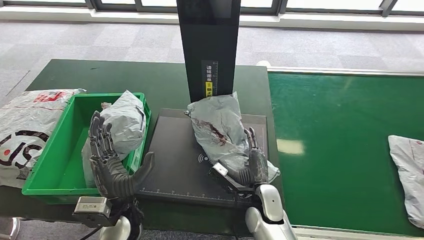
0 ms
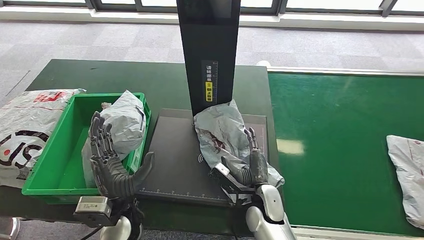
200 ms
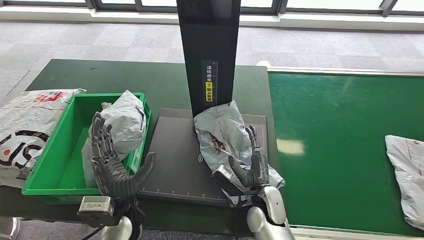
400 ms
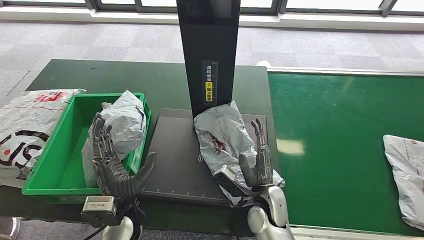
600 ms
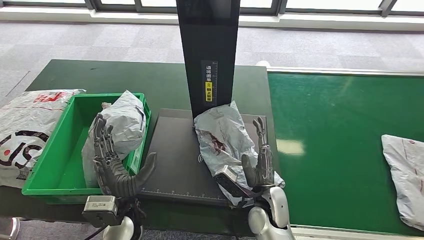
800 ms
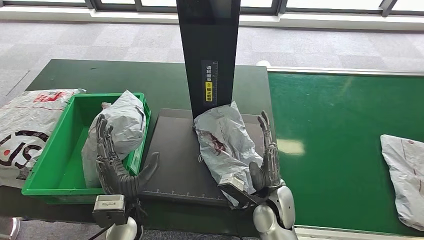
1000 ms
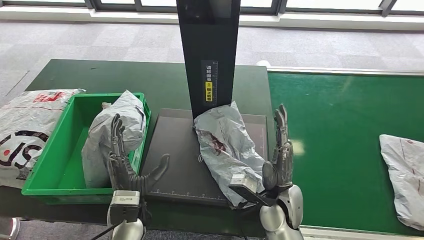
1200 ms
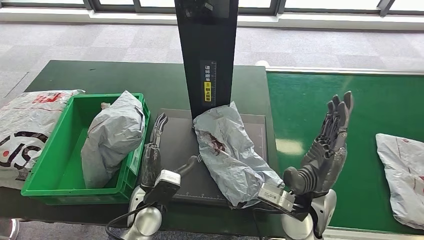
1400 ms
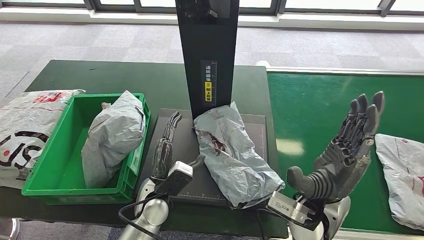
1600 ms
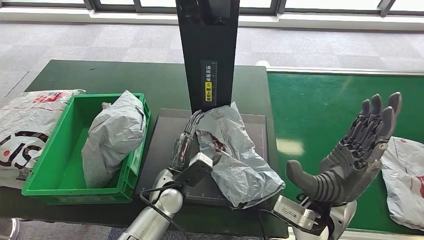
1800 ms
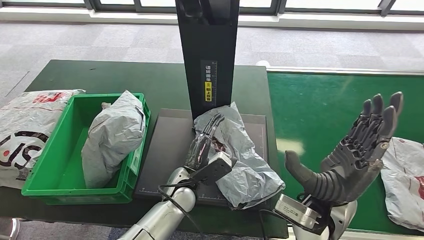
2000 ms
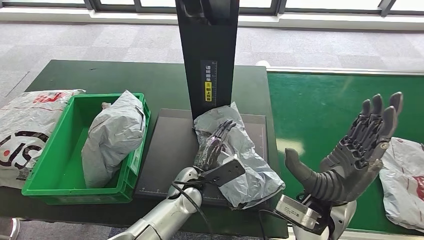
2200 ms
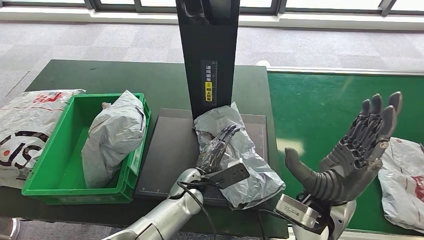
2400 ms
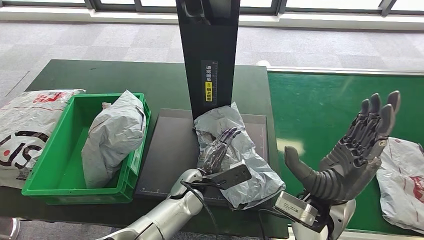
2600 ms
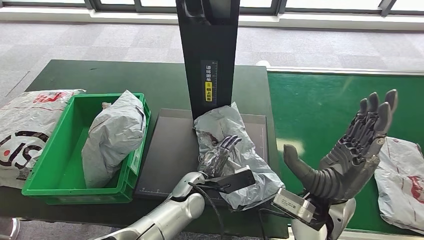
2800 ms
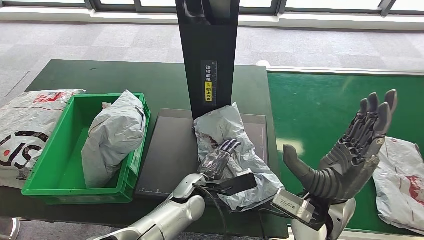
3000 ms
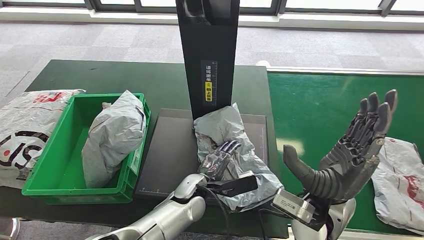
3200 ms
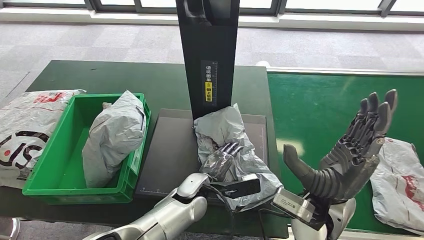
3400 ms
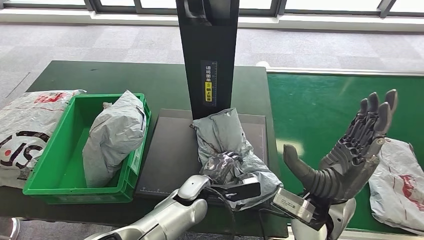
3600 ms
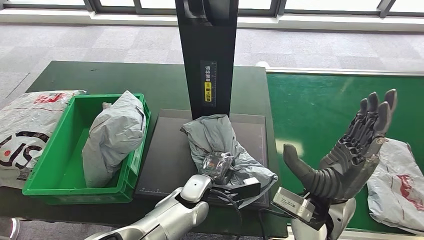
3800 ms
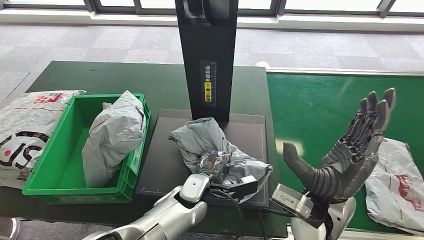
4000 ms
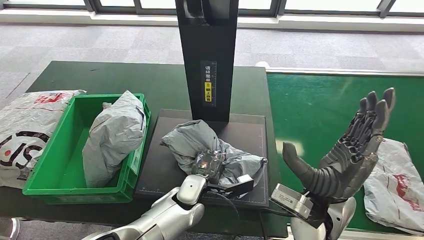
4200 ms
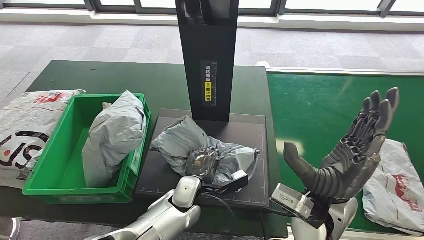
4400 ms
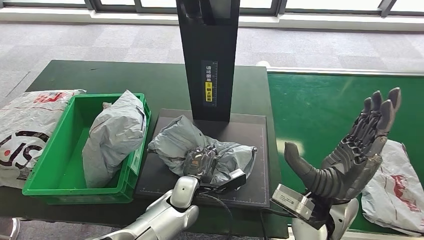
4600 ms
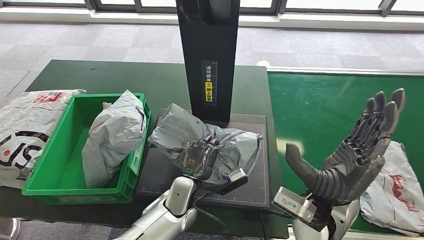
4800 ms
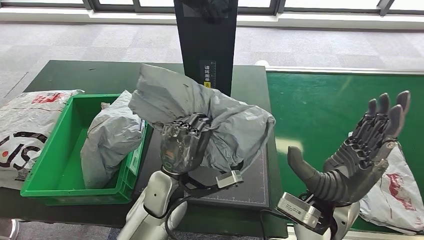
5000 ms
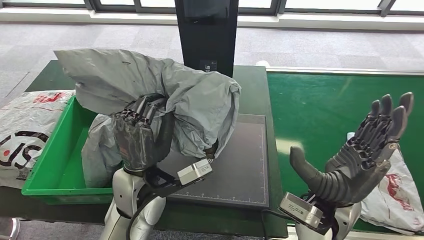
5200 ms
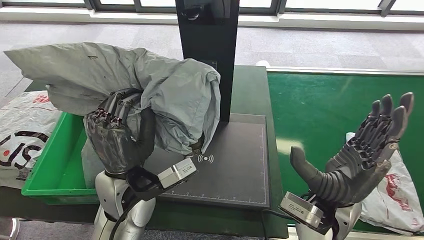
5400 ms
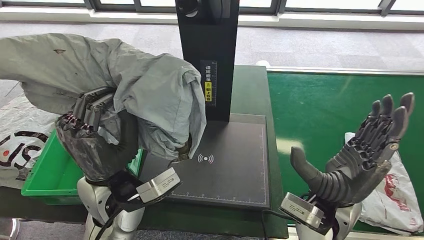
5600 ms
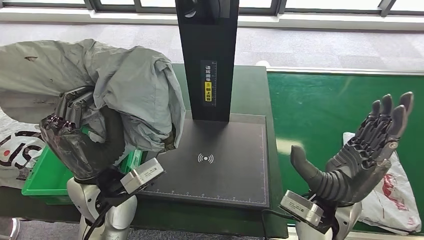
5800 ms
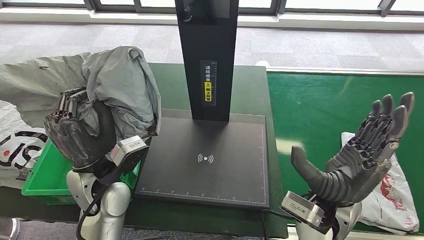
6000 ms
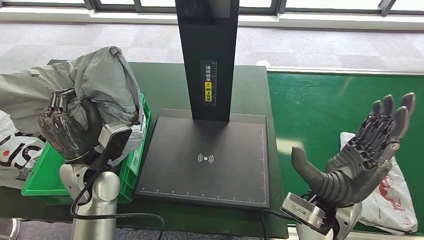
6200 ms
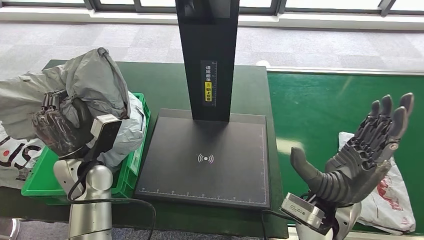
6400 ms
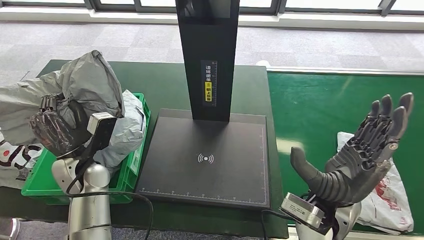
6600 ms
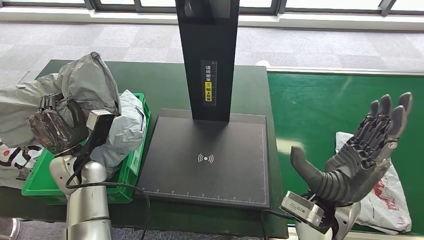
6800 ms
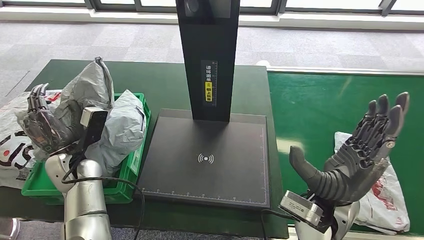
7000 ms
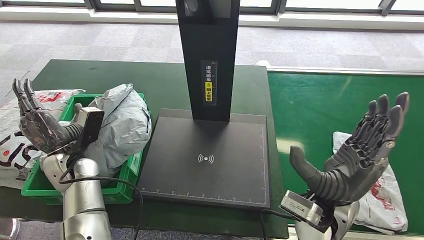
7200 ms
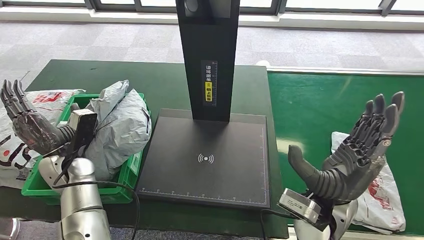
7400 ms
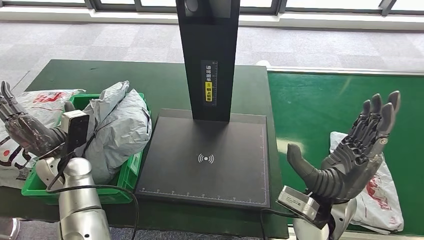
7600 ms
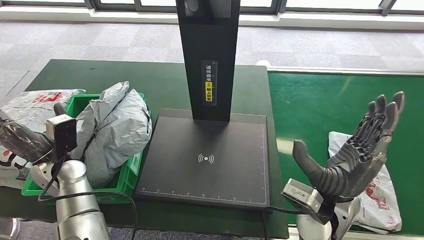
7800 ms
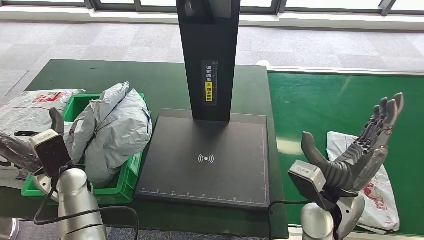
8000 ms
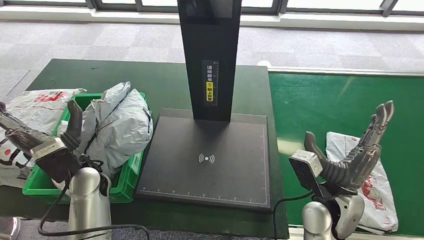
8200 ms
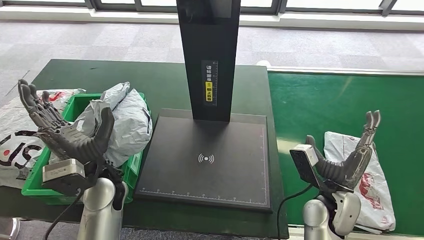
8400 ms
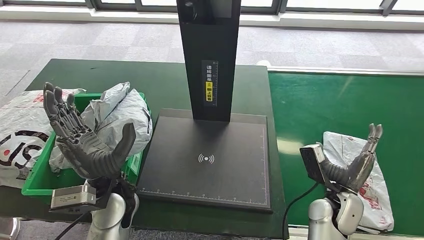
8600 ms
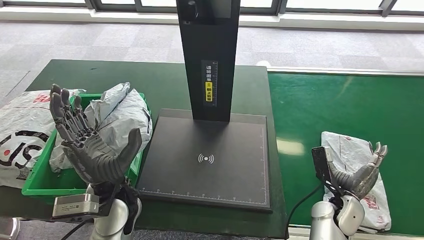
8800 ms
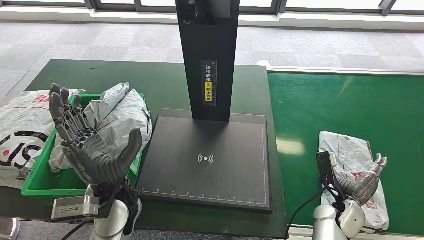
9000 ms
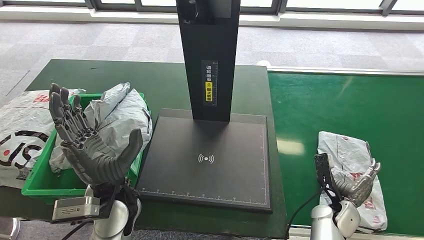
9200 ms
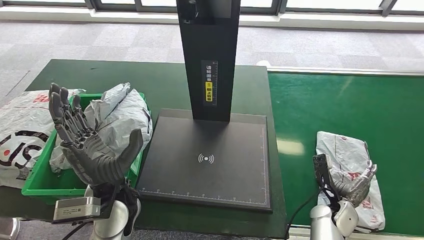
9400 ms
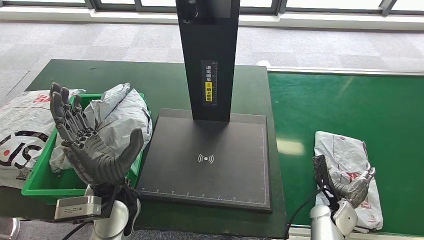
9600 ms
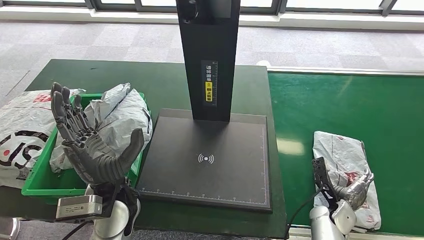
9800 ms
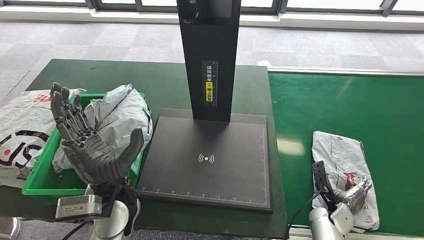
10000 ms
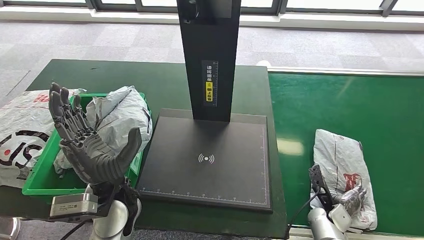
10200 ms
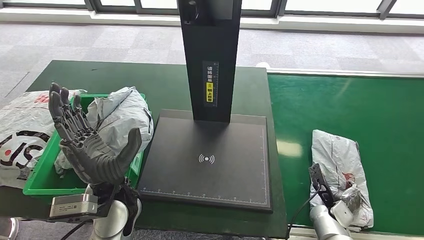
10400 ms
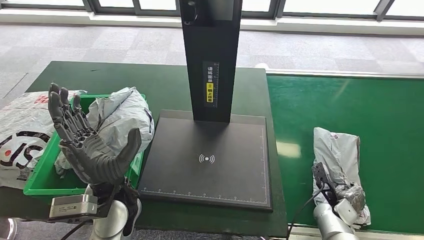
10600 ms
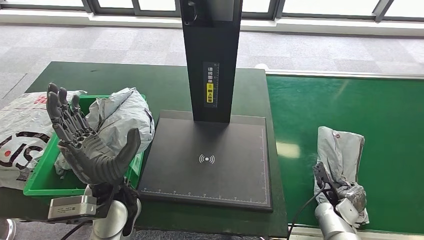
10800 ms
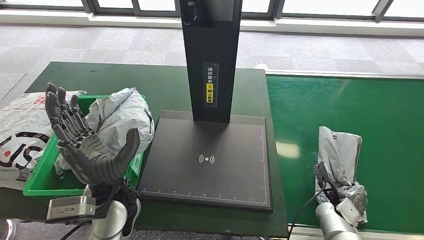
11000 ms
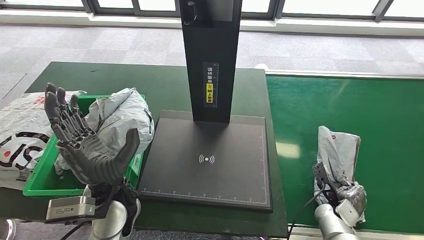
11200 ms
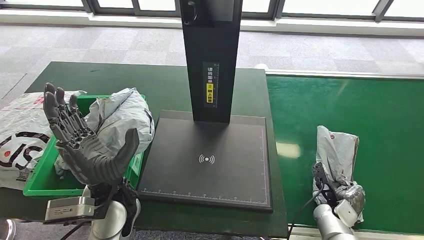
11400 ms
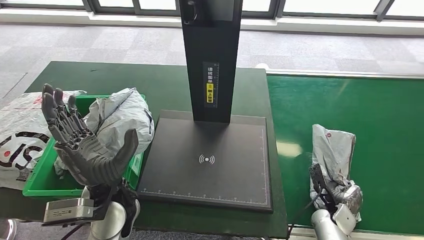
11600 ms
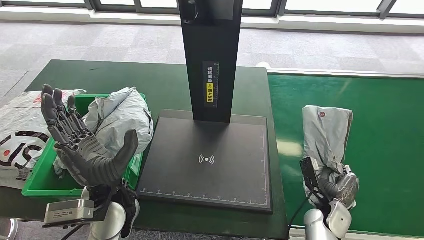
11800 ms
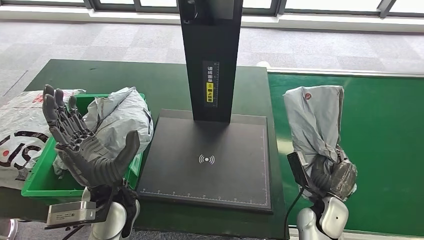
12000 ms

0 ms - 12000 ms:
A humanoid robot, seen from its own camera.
Step, 0 ms - 2000 ms: Place the parcel onto the inbound machine.
Step, 2200 ms - 4800 ms: Pick up the parcel from the inbound machine.
Step, 6400 ms - 8600 ms: Place the parcel into the delivery box.
Step, 9600 ms - 12000 ms: Pick up the parcel from the conveyor belt.
1600 ms - 3000 ms: The left hand moves to the right, roughly 10 cm.
7600 ms - 9000 ms: The left hand travels to the right and upward by approximately 15 cm; the right hand is displaced downward and to the right by roughly 20 cm.
9000 ms - 10400 ms: The right hand goes approximately 5 cm downward.

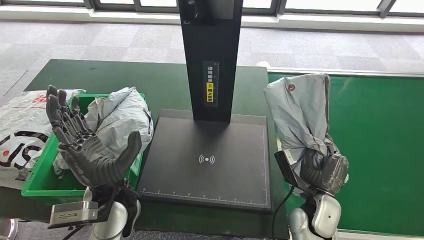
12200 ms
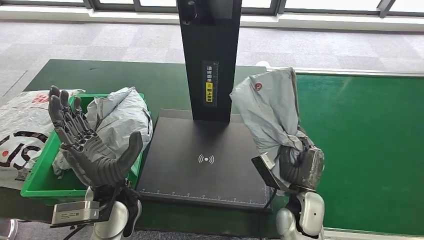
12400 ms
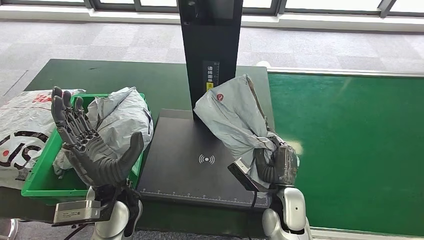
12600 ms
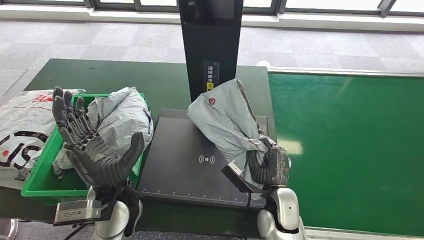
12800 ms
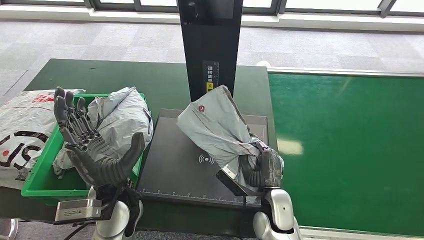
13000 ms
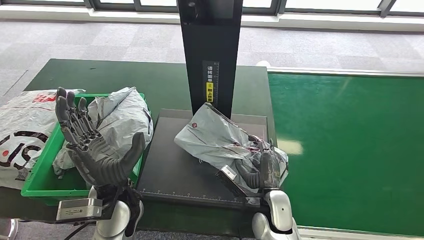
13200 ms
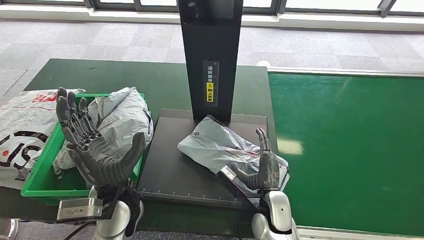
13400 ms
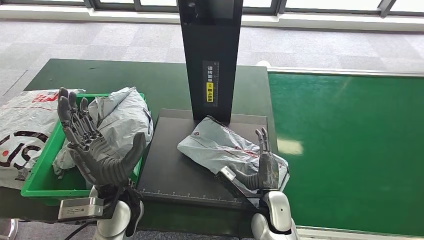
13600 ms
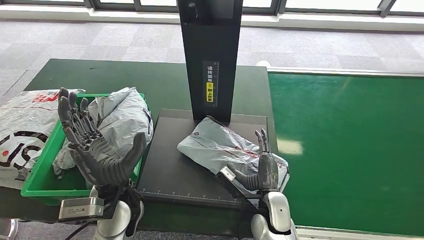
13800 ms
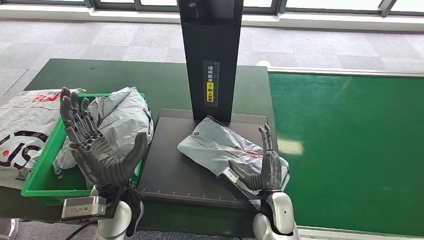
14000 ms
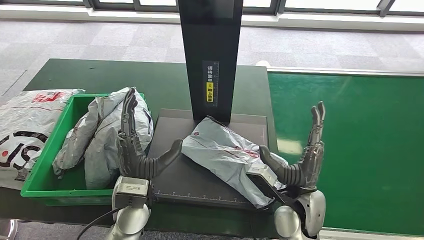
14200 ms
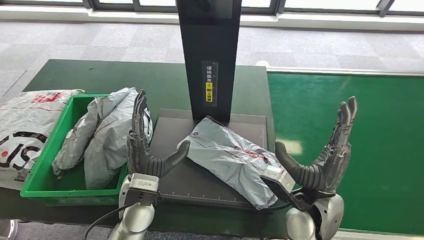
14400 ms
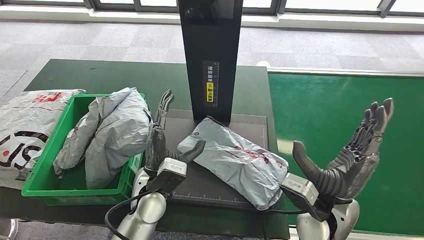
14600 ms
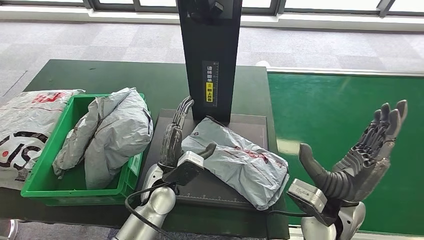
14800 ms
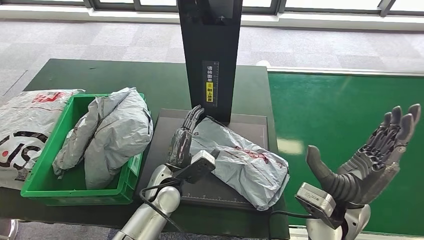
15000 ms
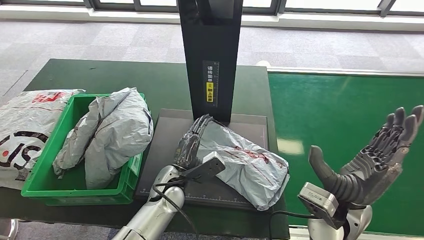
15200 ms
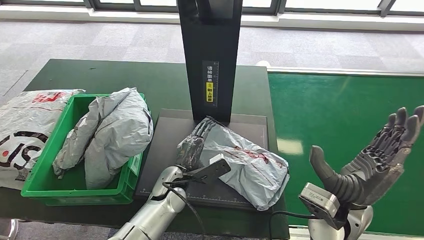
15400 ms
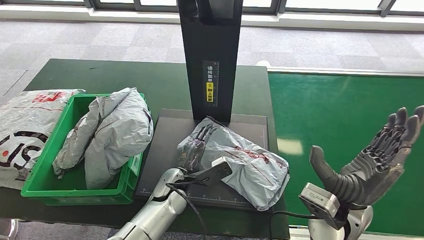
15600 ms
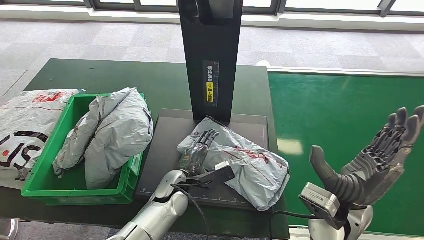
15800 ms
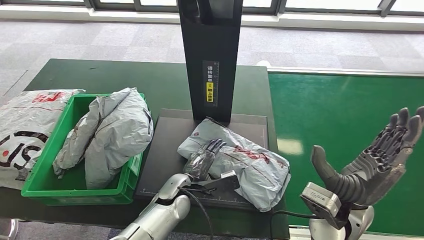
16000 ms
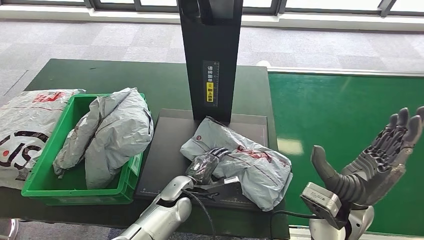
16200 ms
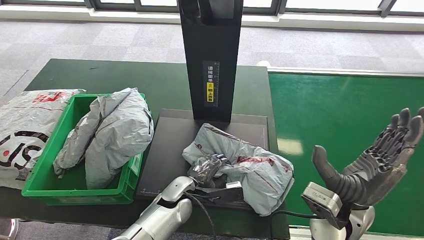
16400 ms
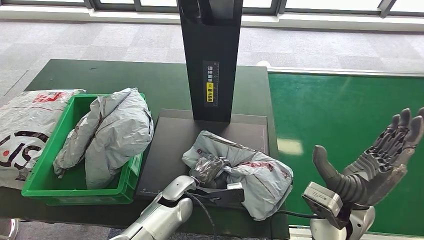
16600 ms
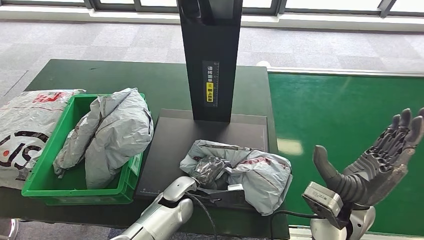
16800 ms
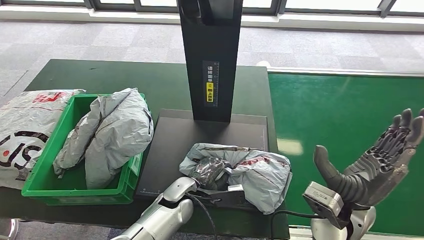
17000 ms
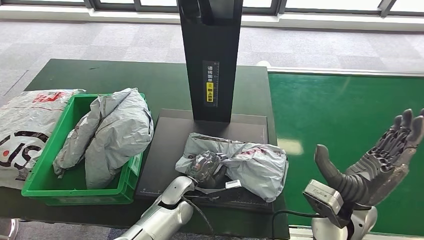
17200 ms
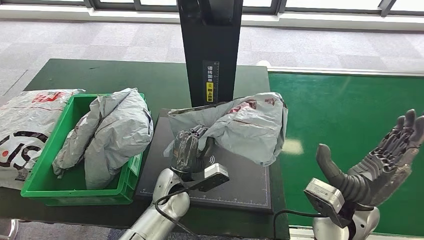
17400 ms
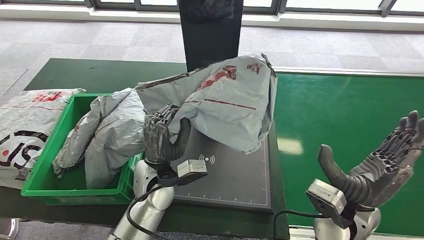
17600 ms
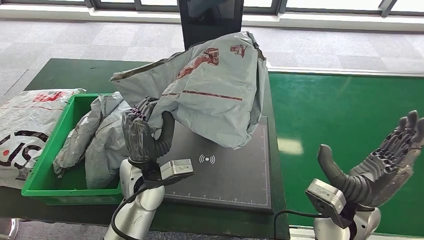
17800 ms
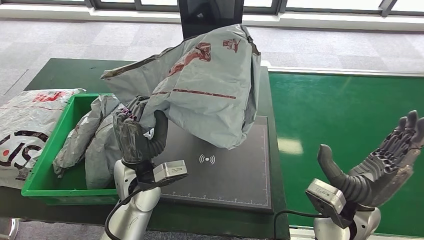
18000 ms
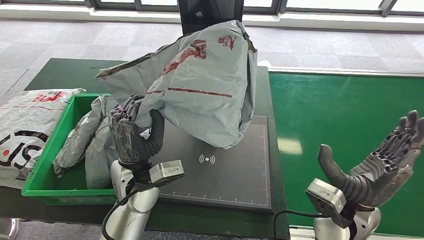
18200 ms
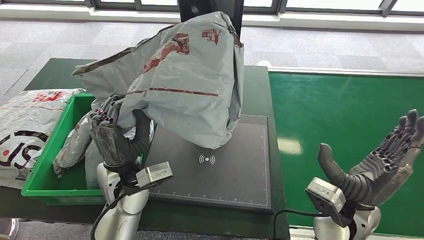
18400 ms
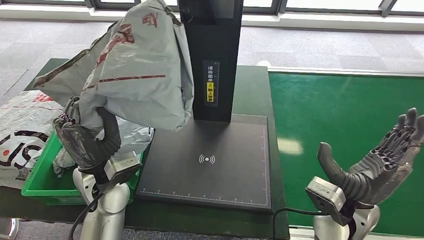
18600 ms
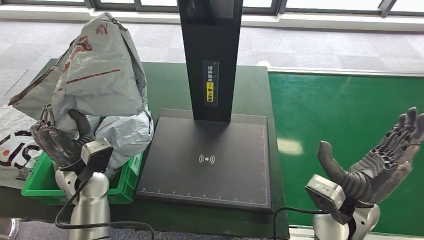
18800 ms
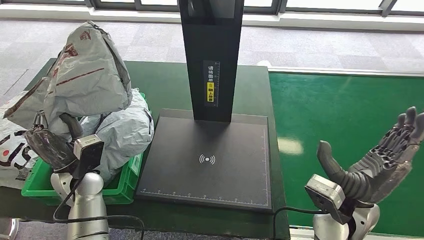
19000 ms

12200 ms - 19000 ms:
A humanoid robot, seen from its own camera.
Step, 12200 ms - 14800 ms: Place the parcel onto the inbound machine.
Step, 15000 ms - 18600 ms: Pick up the parcel from the inbound machine.
13600 ms - 15000 ms: The right hand moves upward and to the right, some 15 cm. Meanwhile the left hand goes roughly 10 cm downward, to the right and forward.
15000 ms - 16200 ms: The left hand moves some 5 cm.
